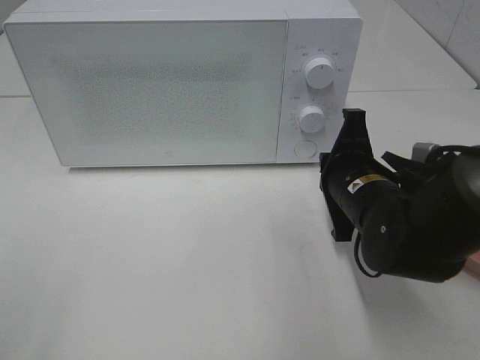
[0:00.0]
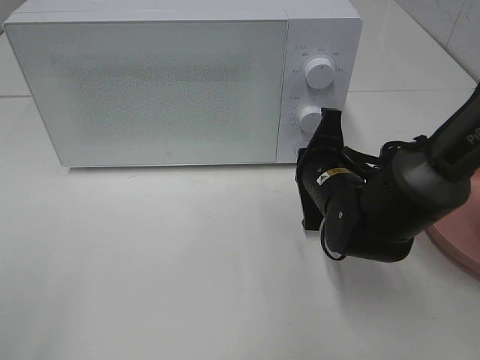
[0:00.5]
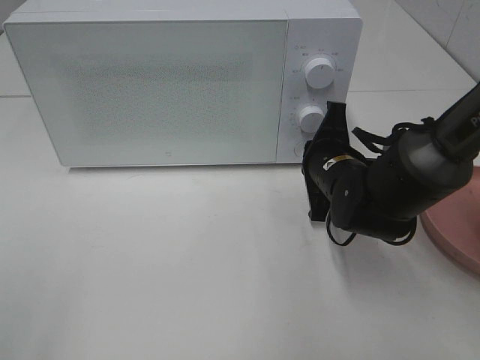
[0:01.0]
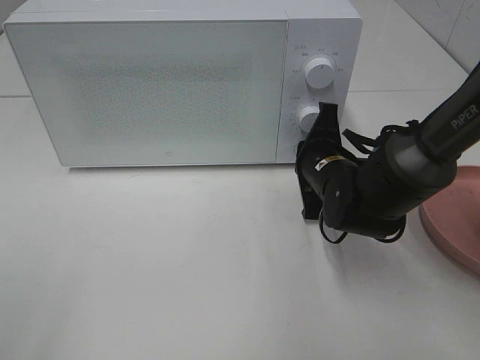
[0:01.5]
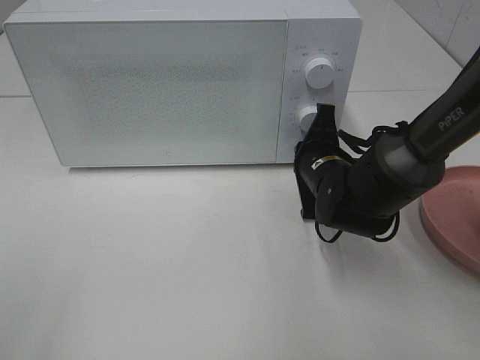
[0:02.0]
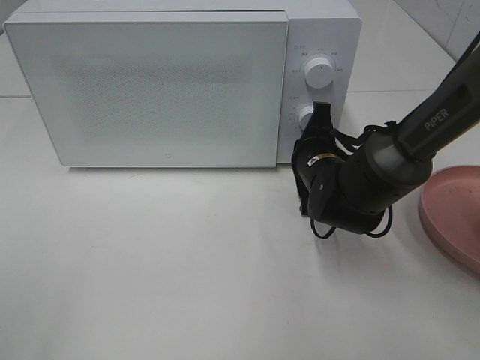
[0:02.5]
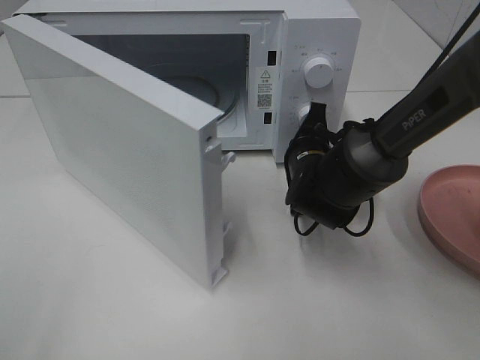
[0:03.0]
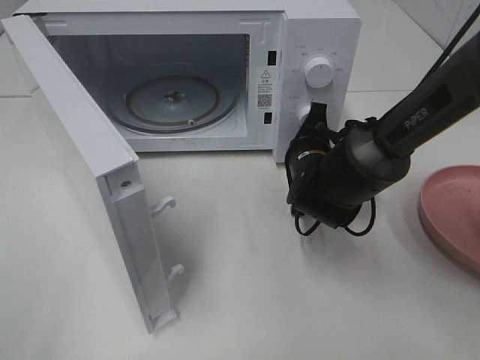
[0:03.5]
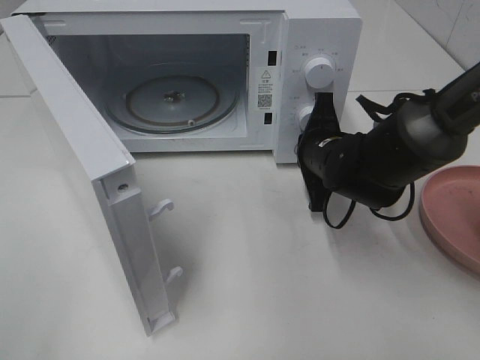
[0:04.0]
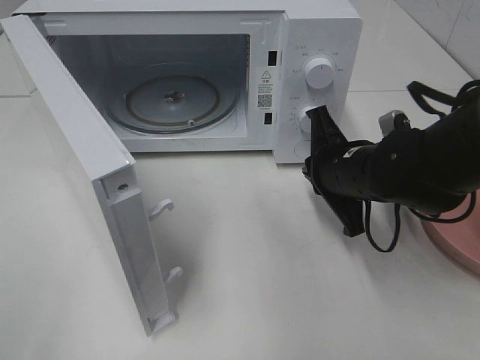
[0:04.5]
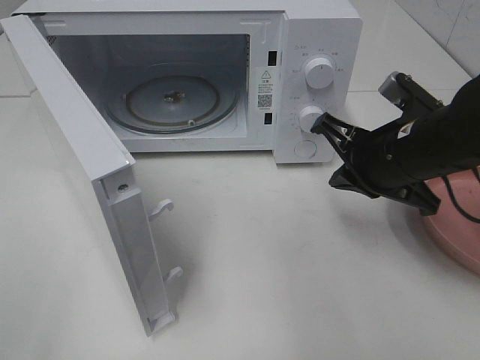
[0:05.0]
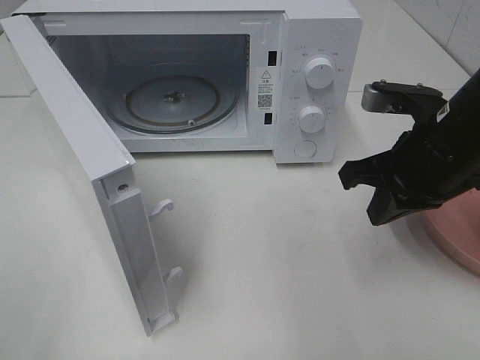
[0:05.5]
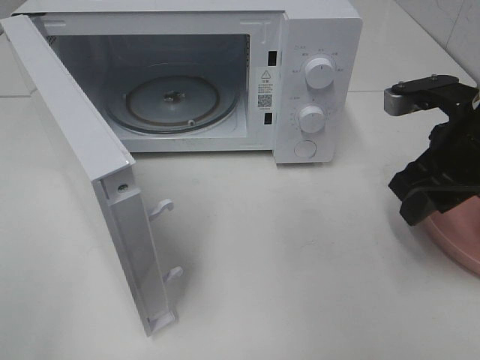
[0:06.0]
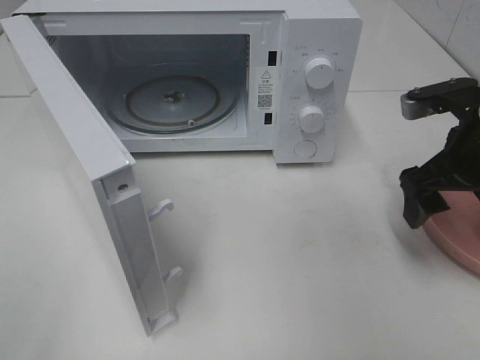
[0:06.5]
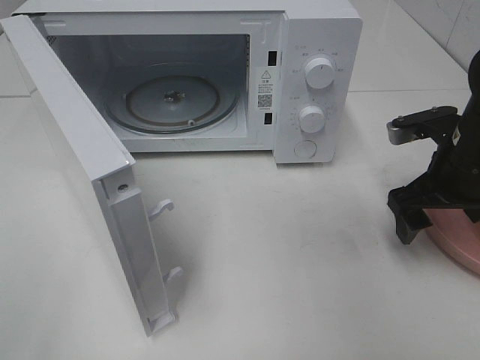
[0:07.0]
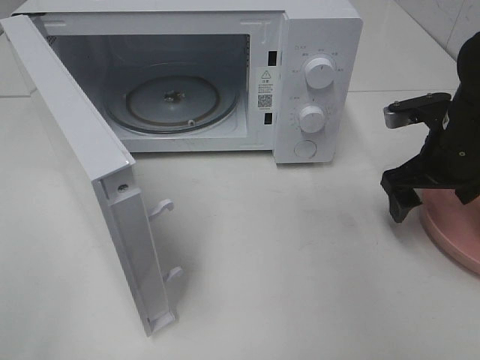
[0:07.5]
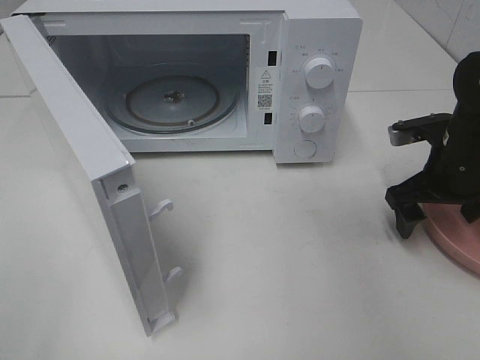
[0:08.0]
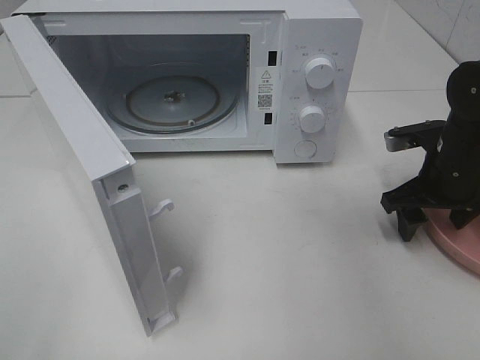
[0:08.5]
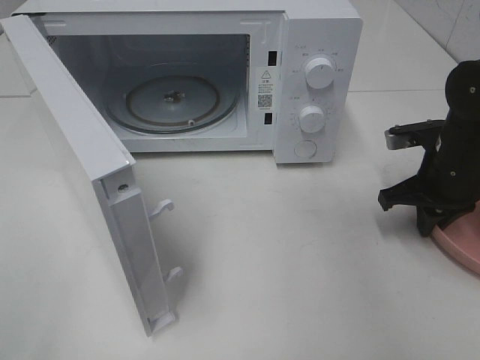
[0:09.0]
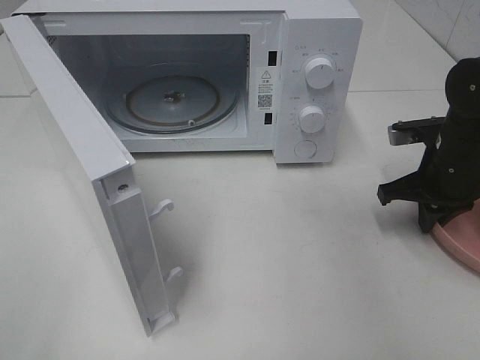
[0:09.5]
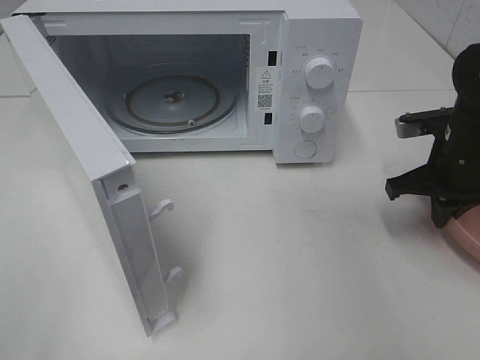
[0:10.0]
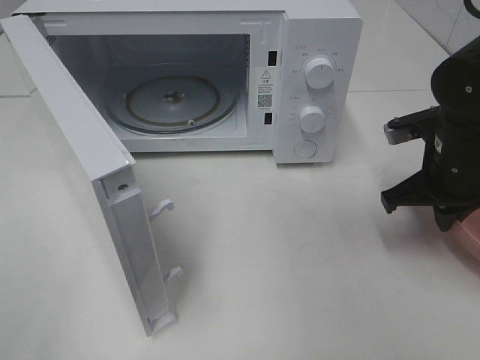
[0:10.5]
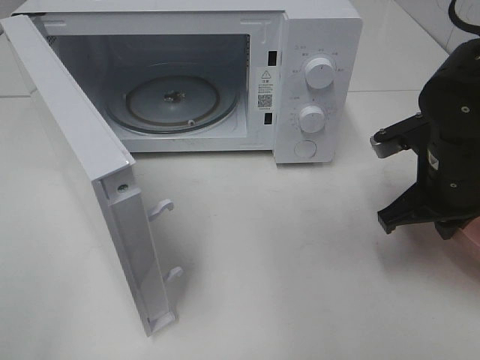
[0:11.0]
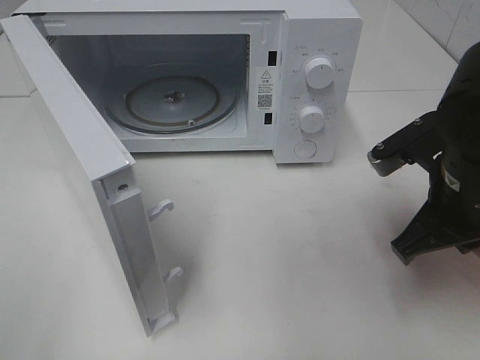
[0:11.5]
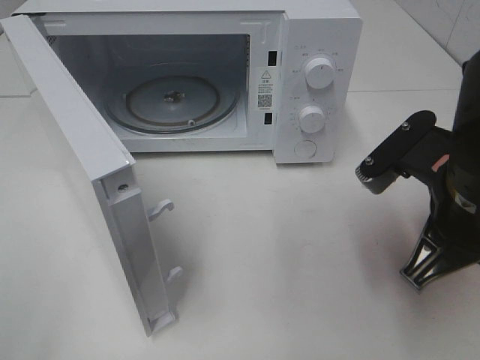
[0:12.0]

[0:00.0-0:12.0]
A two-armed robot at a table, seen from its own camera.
Task of the whole recording: Heat the burger.
Step, 0:00.0 to 0:04.0: Right hand: press the switch.
Step, 0:04.5 to 0:10.0: Right hand: grab the plate with the hamburger.
0:00.0 to 0:02.0: The right gripper travels forward by roughly 5 cm.
0:04.0 to 0:06.0: The right gripper goes approximately 15 cm upward, to the right and backward, and opens its fingers.
0:06.0 to 0:08.0: The right gripper moves downward and forward, some 10 cm, and opens its fingers.
0:08.0 to 0:10.0: The right gripper closes up.
0:10.0 to 0:12.0: The right gripper moves backward, to the left and upward, approximately 15 cm.

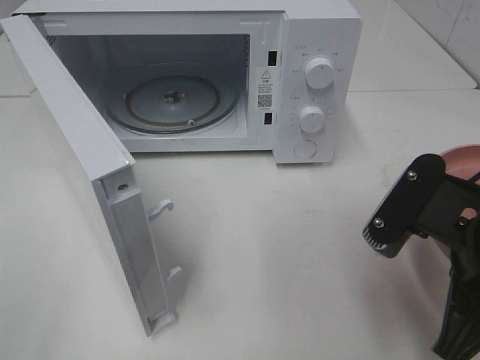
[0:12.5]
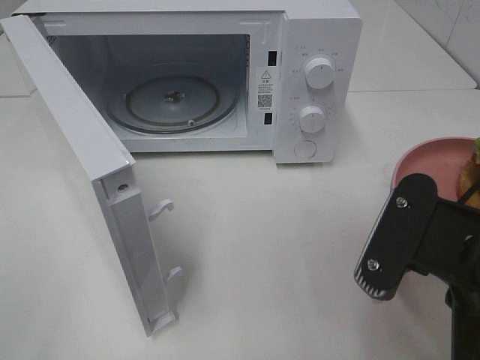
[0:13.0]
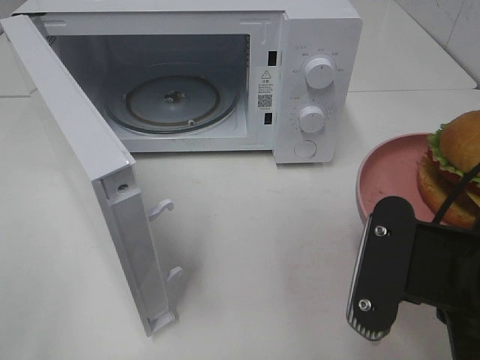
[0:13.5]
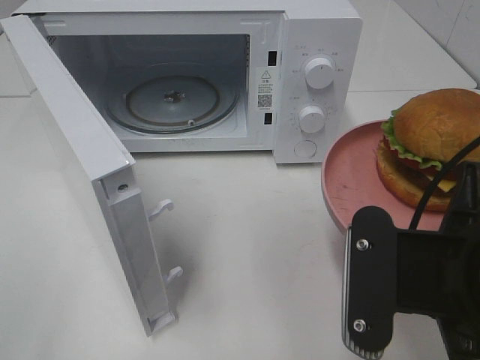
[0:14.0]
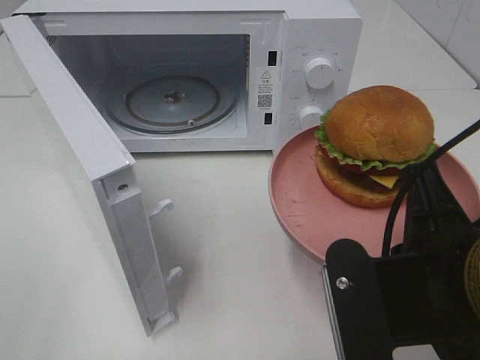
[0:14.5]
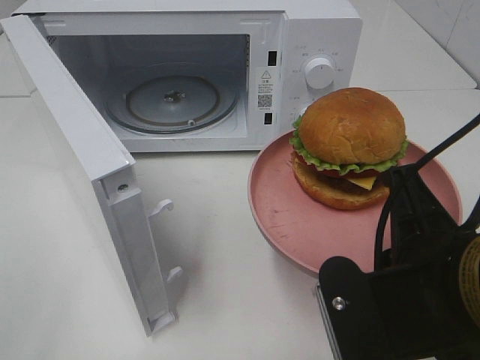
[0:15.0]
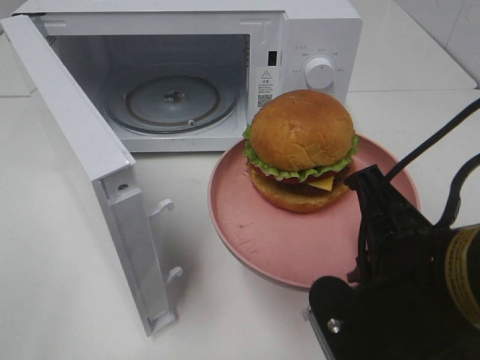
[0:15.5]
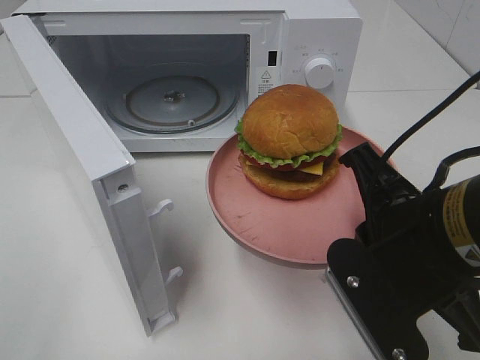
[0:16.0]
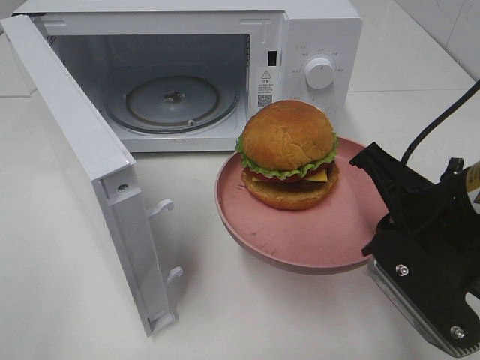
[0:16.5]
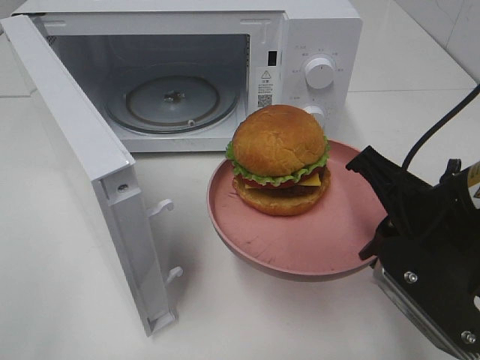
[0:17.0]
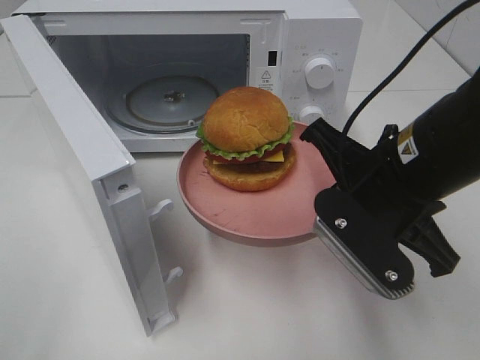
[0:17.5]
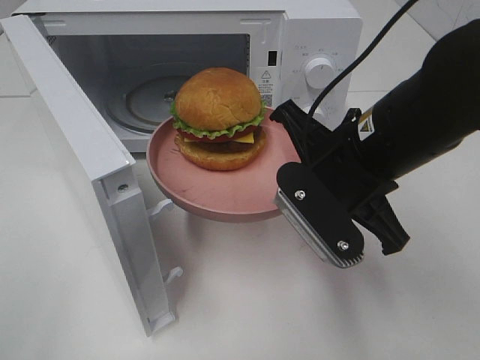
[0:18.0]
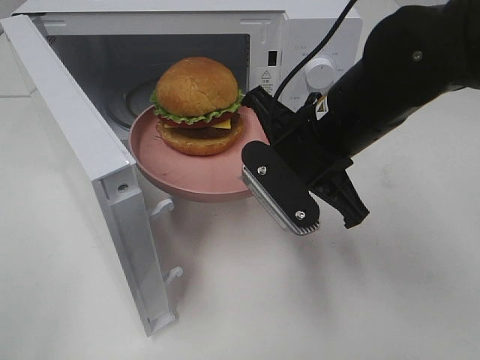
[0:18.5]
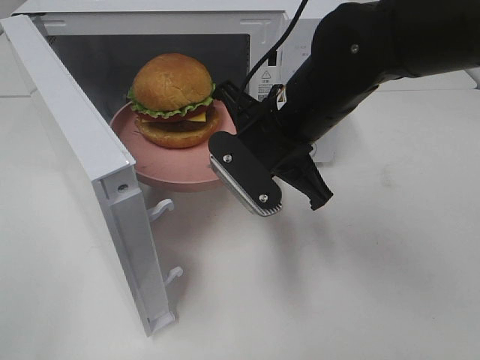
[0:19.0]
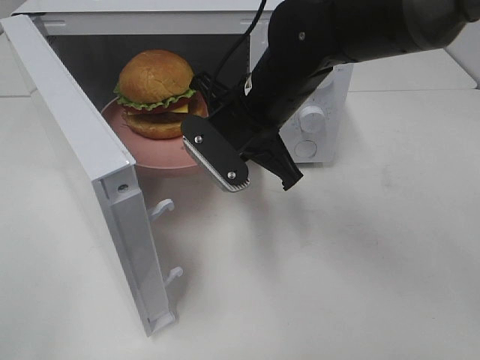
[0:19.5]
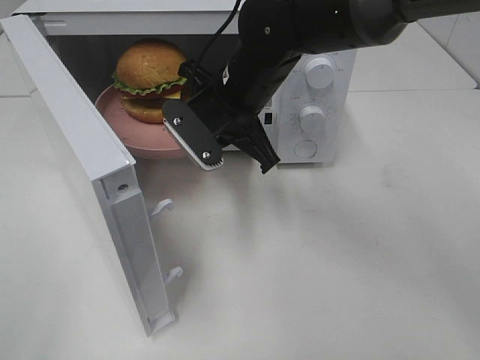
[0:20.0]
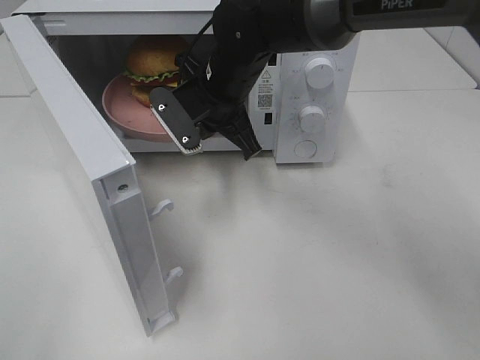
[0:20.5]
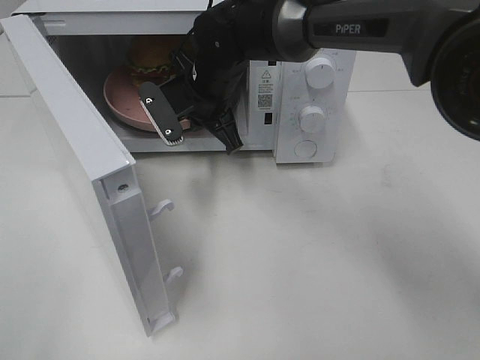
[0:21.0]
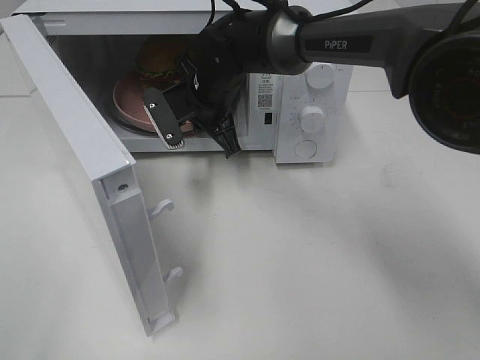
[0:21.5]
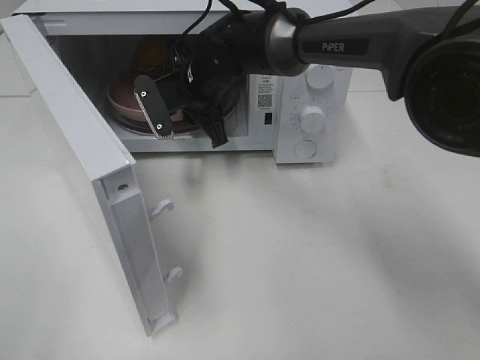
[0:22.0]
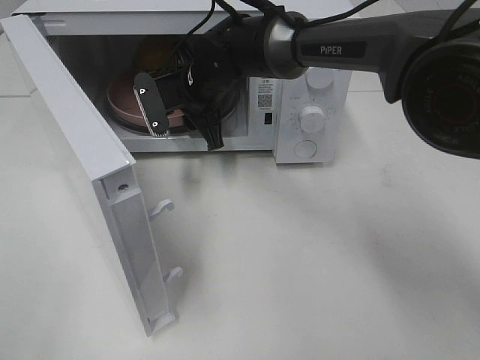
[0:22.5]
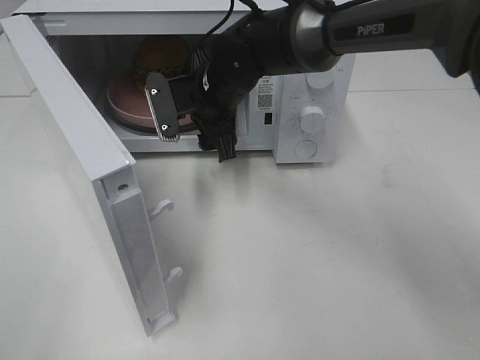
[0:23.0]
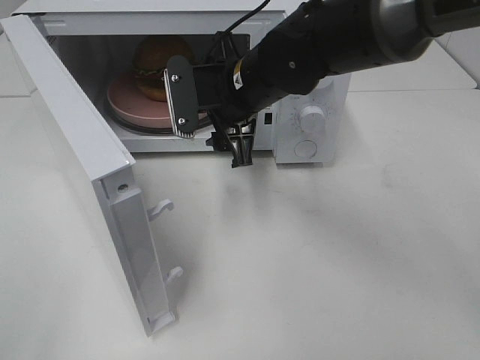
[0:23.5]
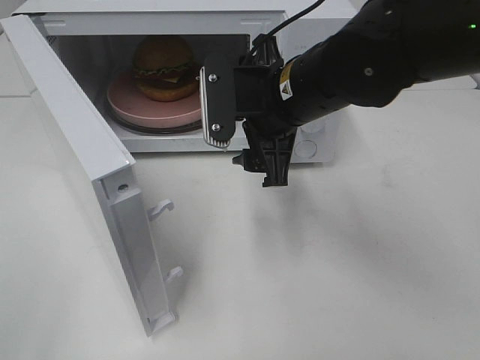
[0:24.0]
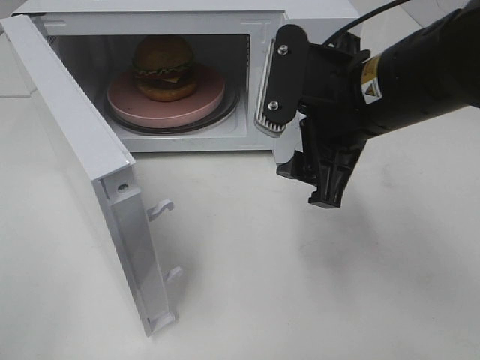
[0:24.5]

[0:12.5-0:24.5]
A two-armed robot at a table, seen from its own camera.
Task of the whole recording: Heat the burger.
Step, 0:12.5 to 0:22.5: Right hand: place the plate in the microwave.
0:12.5 to 0:14.5: The right gripper shifts by approximately 5 cm.
0:14.5 to 0:16.5: The right gripper shifts about 5 cm forward.
0:16.5 to 0:18.5: The right gripper travels forward and to the left by about 10 cm.
0:18.5 to 0:20.5: The right gripper shifts approximately 15 cm forward and to the left.
0:20.5 to 0:22.5: The right gripper shifts by approximately 5 cm, and opens.
0:22.5 to 0:24.5: The right gripper shifts approximately 25 cm backward, to the right and upward.

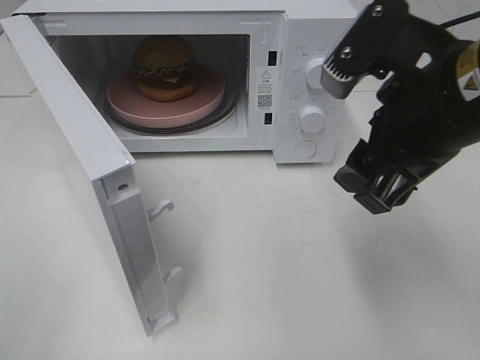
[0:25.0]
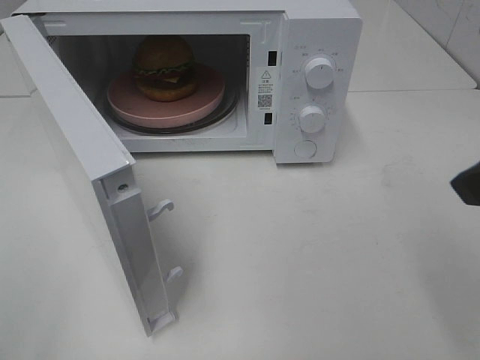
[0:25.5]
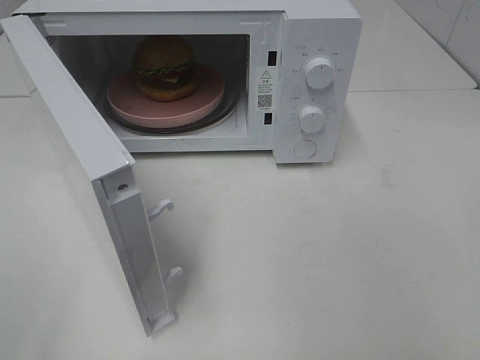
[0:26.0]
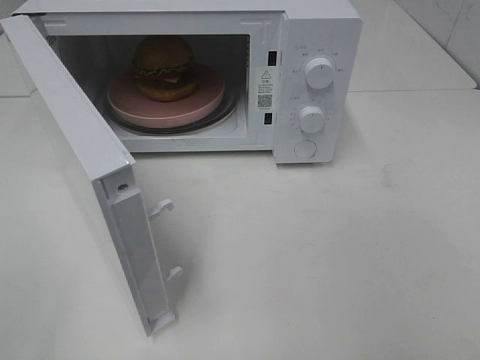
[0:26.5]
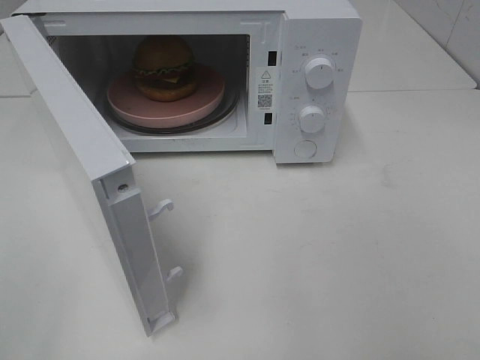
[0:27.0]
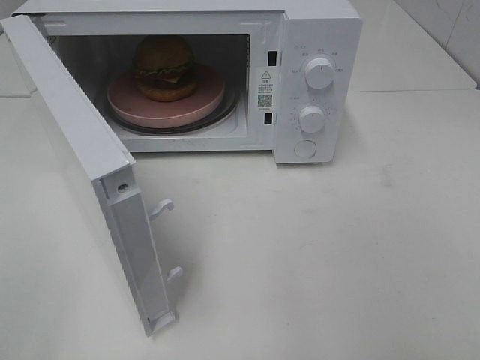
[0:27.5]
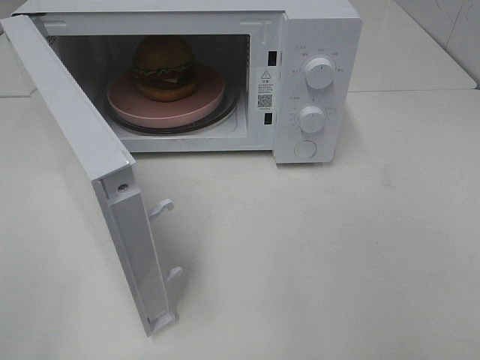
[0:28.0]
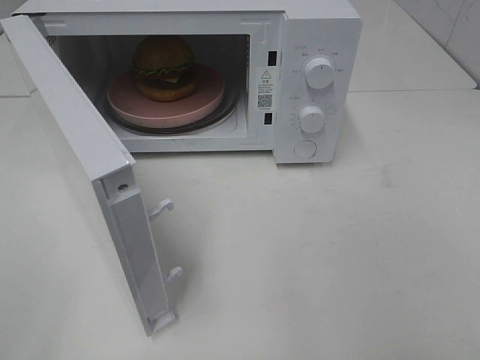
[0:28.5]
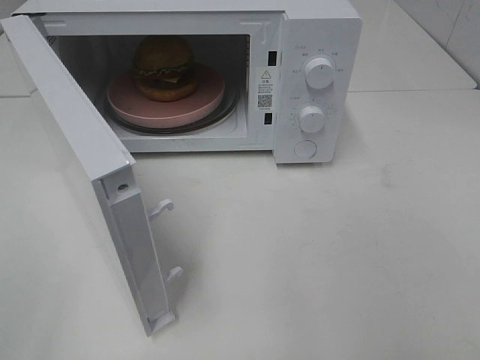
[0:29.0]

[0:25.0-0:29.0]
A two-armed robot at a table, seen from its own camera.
Task of the whole recording: Heat the burger.
0:25.0 to 0:27.0: The right gripper goes about 25 cm backward and to the right.
0:27.0 to 0:29.0: Both grippers stay put.
